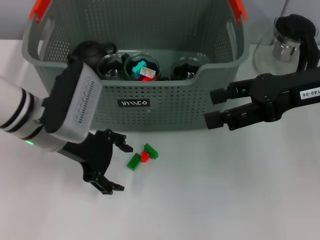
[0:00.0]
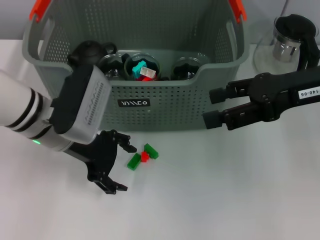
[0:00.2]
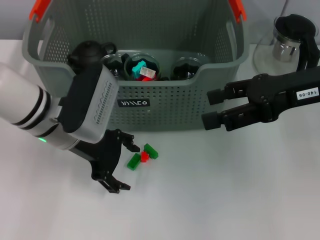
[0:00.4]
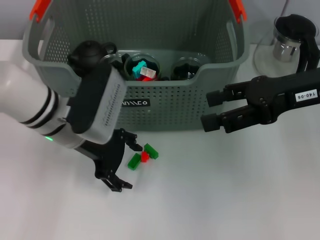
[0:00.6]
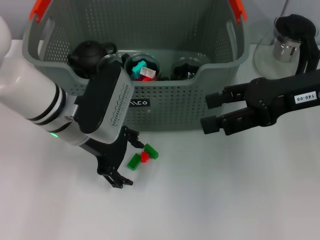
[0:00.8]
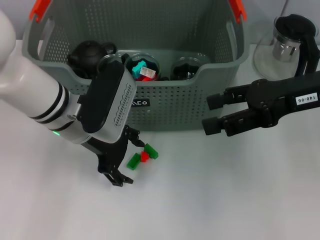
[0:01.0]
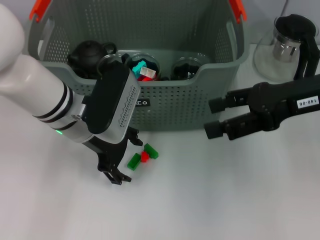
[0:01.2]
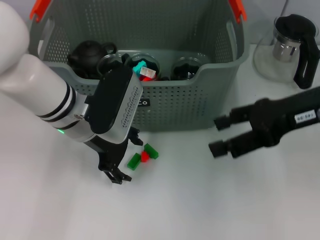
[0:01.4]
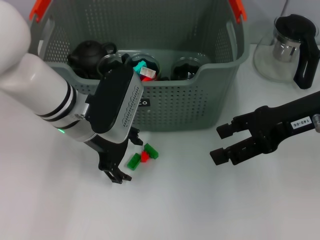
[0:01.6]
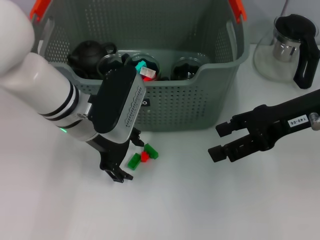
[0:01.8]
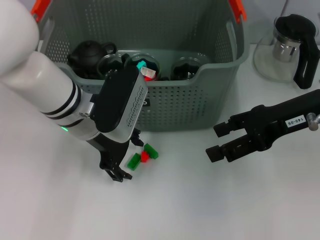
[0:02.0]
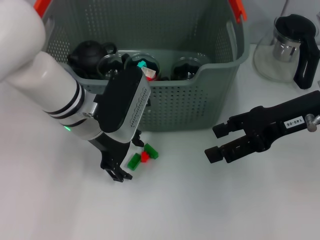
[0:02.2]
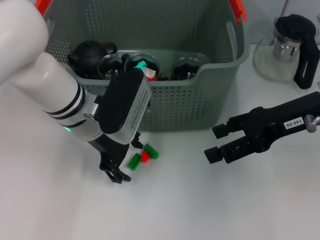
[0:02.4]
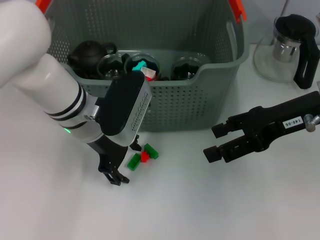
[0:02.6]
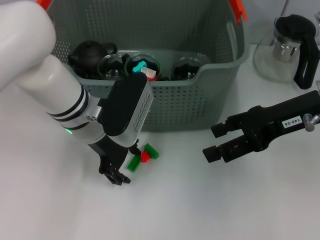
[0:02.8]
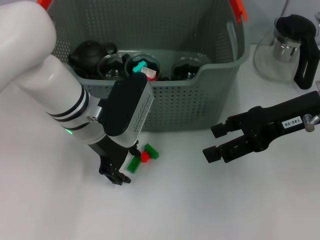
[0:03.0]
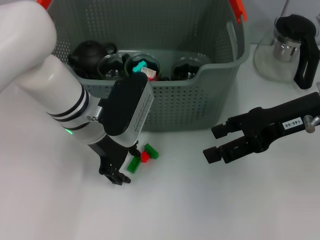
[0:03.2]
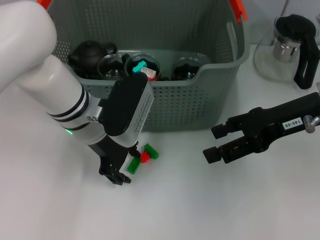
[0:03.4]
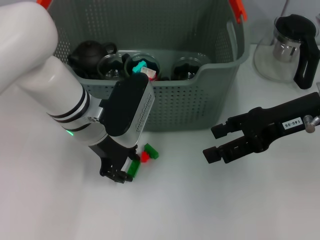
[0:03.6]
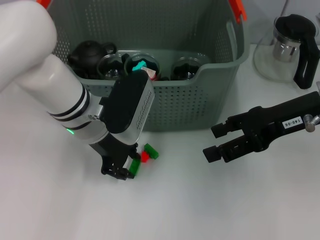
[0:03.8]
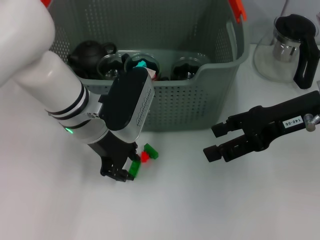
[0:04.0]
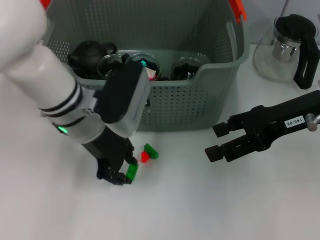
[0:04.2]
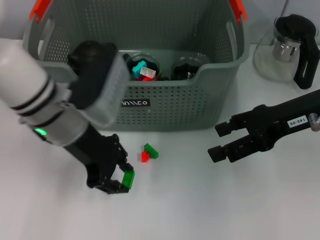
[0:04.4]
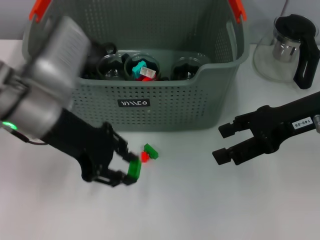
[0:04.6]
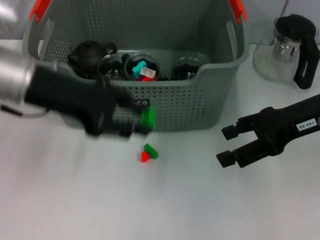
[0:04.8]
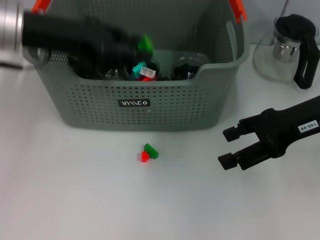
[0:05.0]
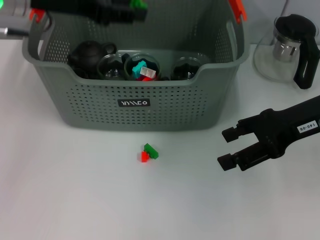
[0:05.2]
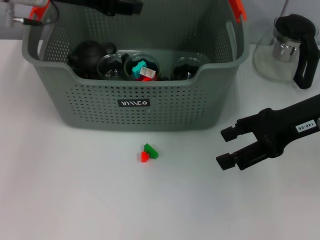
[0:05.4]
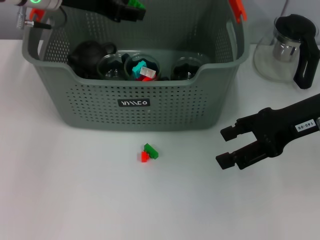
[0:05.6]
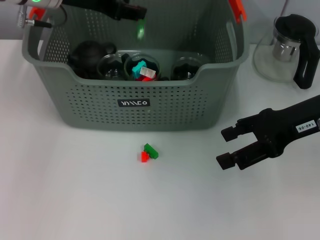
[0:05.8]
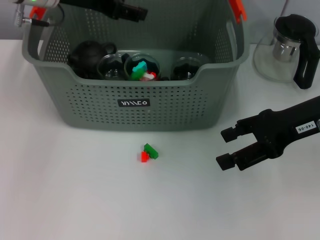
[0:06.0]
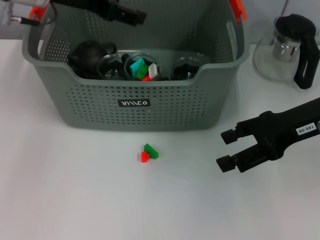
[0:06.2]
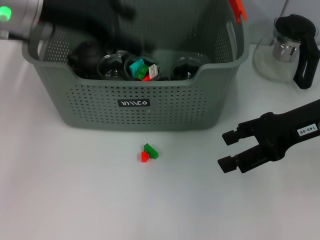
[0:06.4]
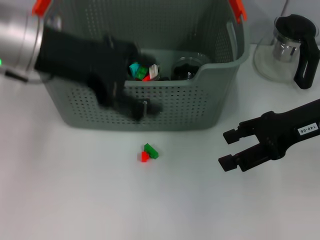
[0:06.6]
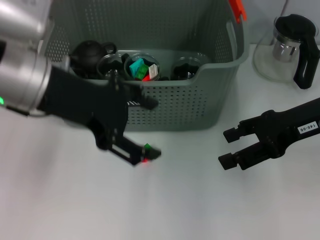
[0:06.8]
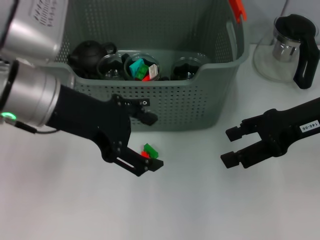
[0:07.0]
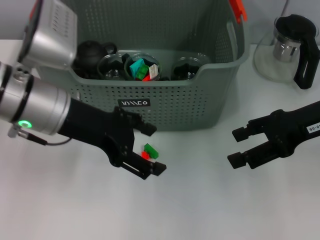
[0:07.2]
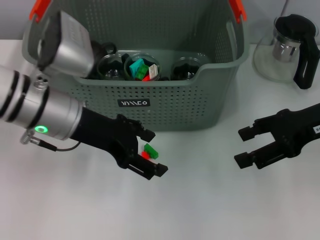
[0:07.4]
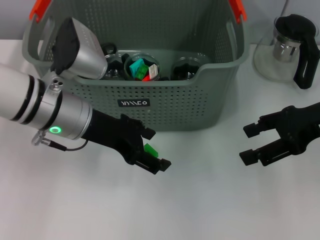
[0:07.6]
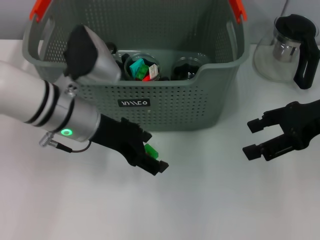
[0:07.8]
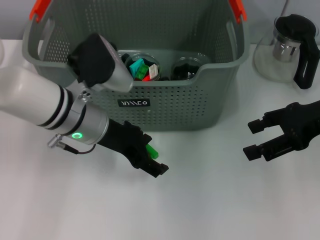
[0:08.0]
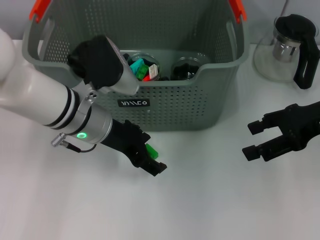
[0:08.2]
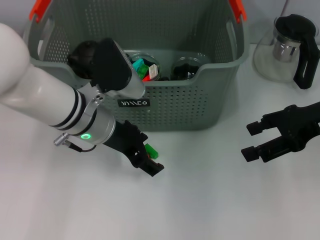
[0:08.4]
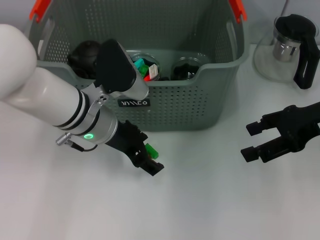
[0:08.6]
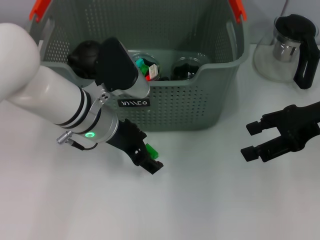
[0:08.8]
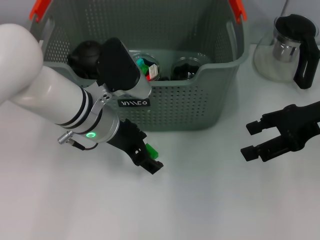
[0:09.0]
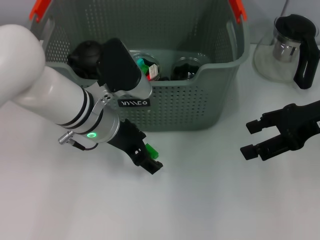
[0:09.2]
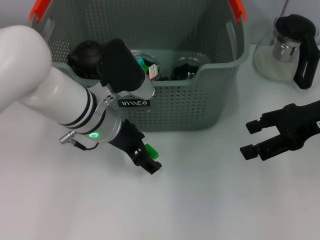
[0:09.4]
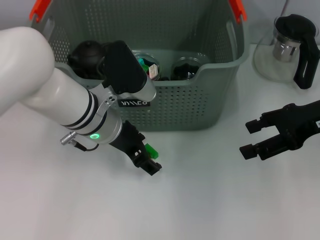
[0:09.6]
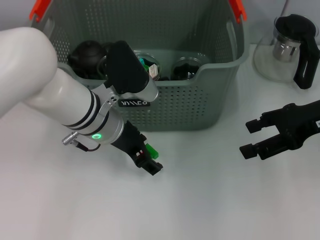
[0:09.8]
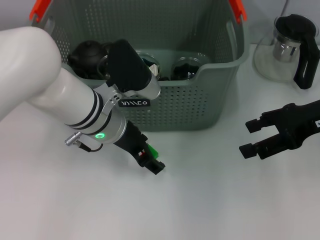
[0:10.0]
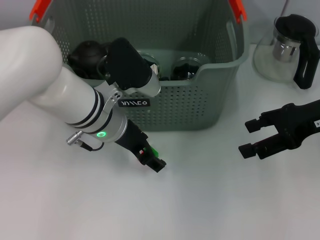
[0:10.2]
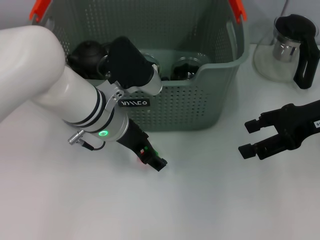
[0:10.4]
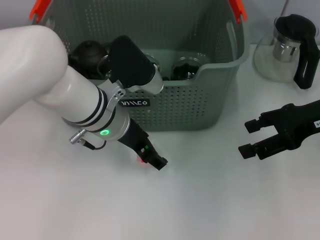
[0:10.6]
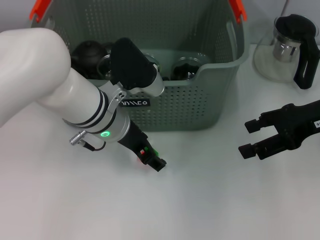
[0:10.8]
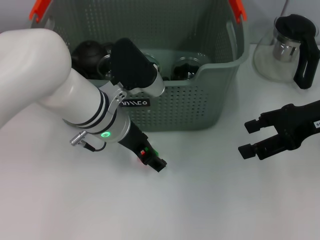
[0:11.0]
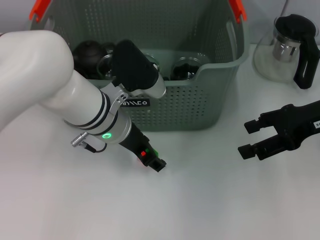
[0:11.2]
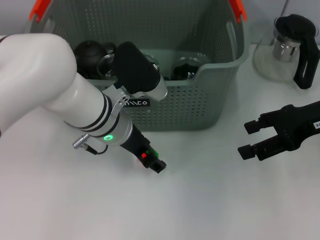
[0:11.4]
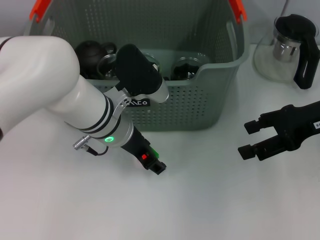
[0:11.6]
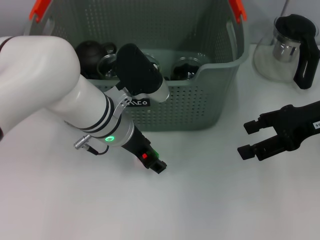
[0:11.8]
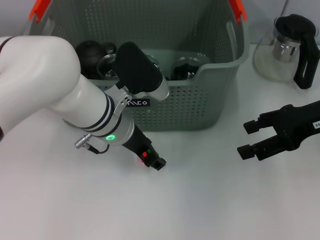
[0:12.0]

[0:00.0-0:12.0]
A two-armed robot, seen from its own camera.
Task of the whole recording: pick up the teacup on the table and place it into the storage bin, pick up the block on the table and place it into the storage bin.
Step, 0:00.0 to 0:03.6: Grasp the green block with left gripper.
Step, 0:03.8 to 0:06.2: Place the green block in the storage box with left gripper.
0:00.0 to 0:01.6: The left gripper ends up approximately 5 cm from where it was.
0:01.6 to 0:03.0: The grippers make only small movements.
0:03.0 to 0:04.4: The left gripper shifts by approximately 5 cm.
0:04.4 to 0:06.0: The left gripper is displaced forward and upward by some 15 cm.
0:06.0 to 0:07.6: The left gripper moves backward and downward, some 15 cm, and opens.
0:07.6 to 0:09.0: The left gripper shifts by some 5 cm.
0:09.0 to 0:10.4: The grippers move only a little.
0:10.4 to 0:12.0: Neither gripper changes place.

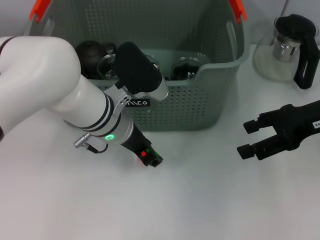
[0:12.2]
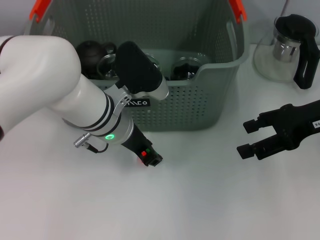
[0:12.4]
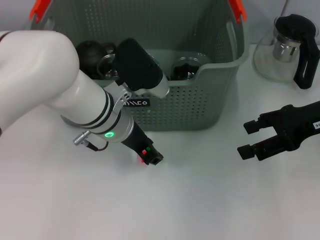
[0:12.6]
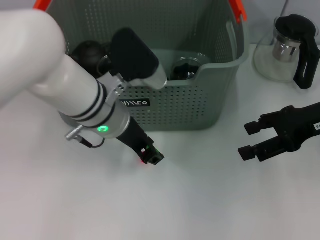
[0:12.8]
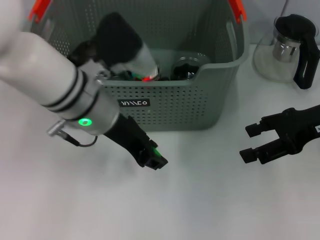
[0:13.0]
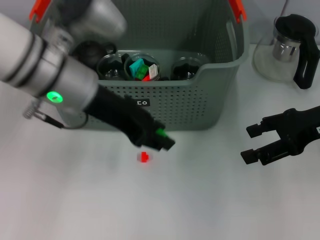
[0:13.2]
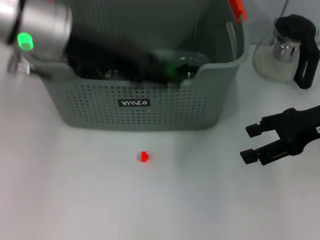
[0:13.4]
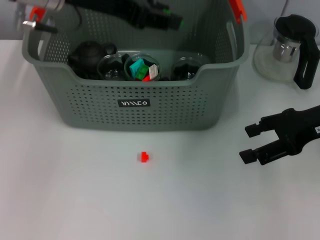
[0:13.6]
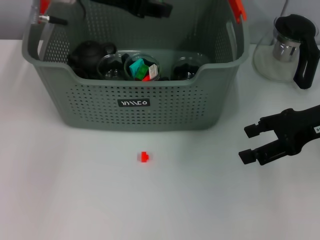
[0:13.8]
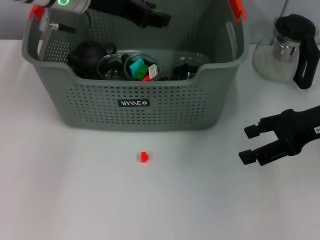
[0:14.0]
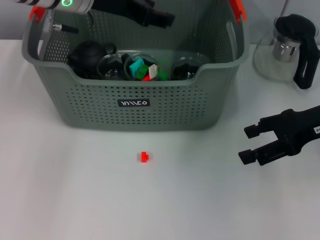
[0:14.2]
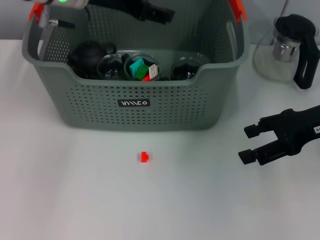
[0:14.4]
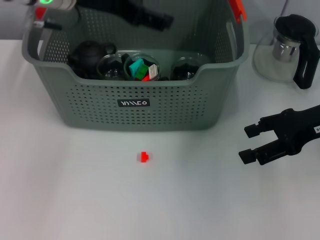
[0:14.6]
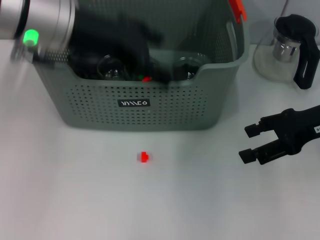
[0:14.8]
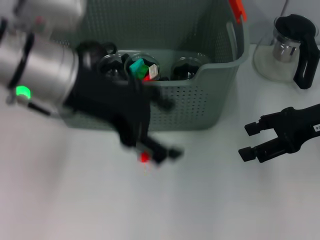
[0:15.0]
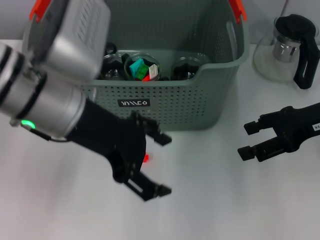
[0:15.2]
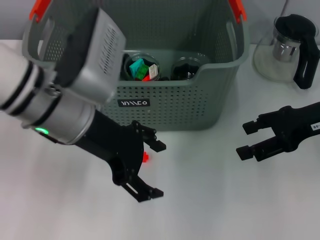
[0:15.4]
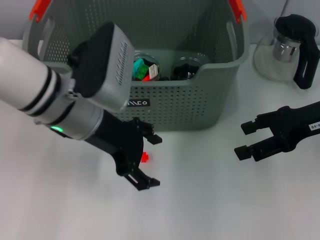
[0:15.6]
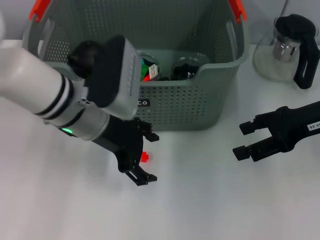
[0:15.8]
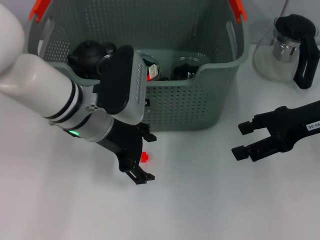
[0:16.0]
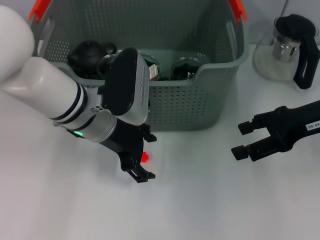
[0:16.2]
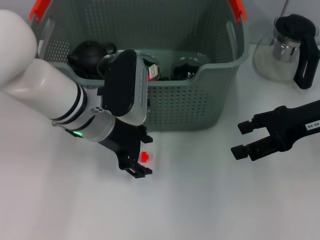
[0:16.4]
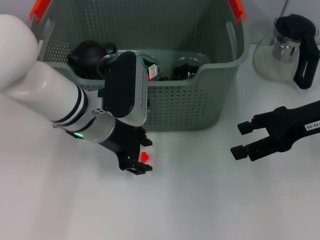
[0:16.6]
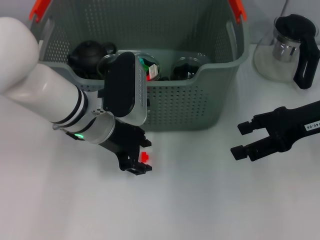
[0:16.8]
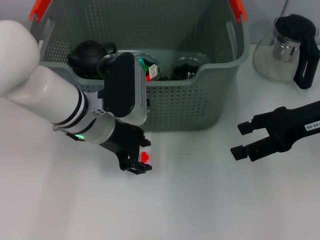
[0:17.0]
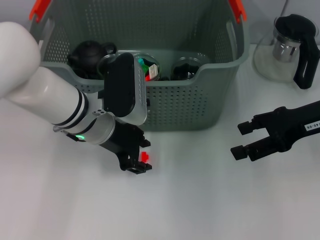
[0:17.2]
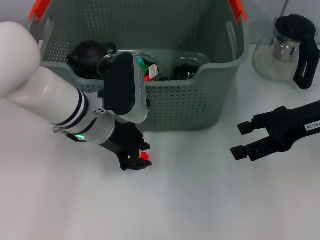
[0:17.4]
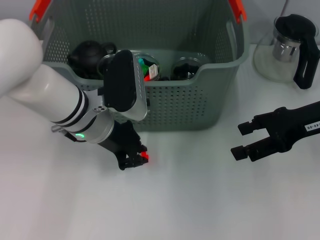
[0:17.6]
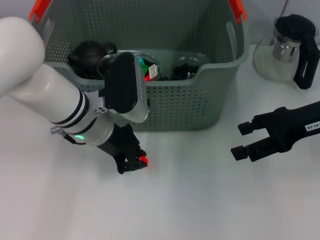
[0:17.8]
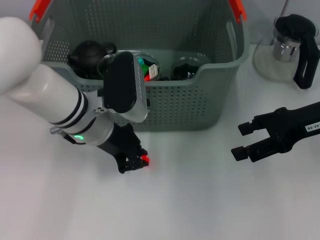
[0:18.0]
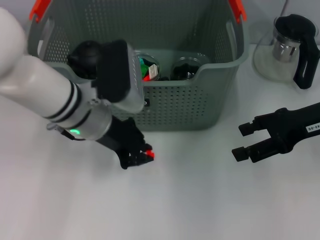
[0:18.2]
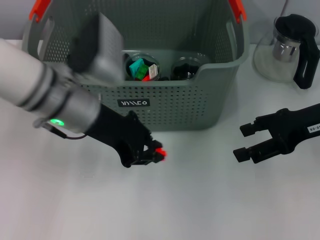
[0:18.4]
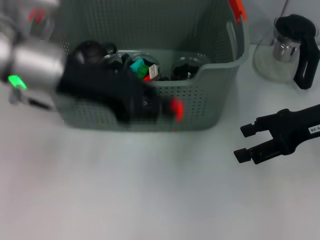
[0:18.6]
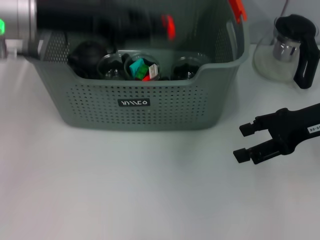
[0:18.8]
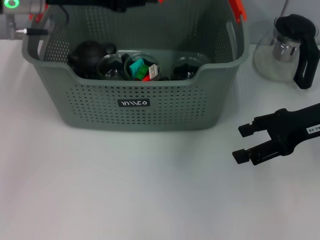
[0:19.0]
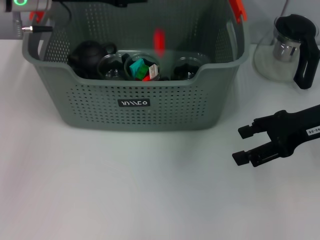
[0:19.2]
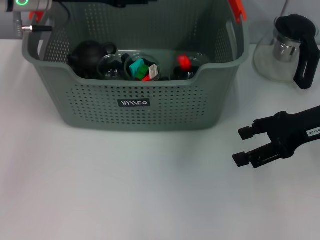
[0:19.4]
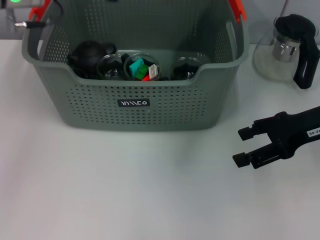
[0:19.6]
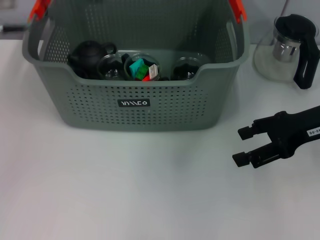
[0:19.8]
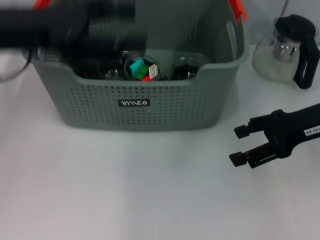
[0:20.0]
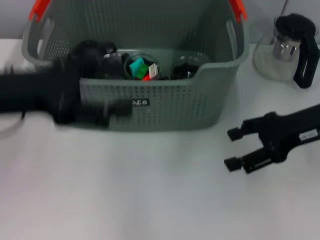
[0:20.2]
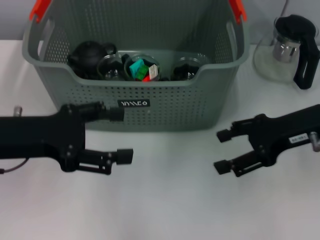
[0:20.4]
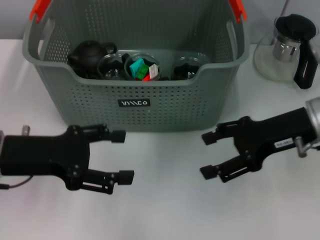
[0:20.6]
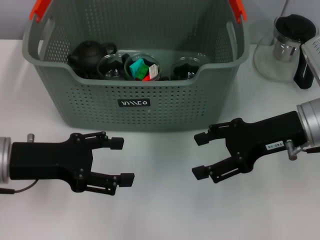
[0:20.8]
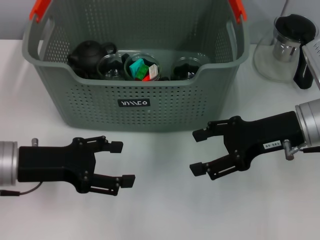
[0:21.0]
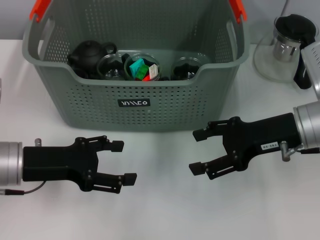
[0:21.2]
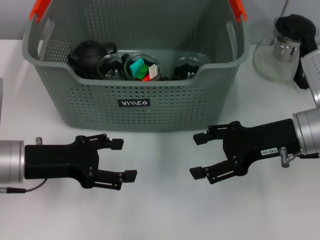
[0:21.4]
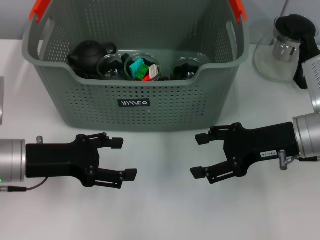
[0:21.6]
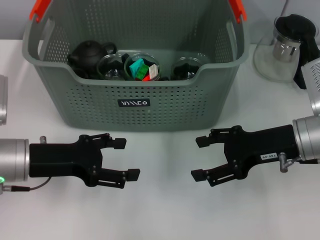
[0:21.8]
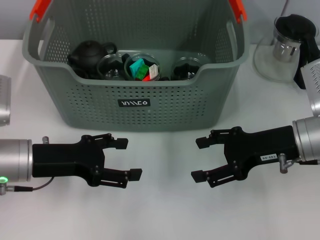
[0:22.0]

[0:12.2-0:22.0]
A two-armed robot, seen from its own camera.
Task of the whole recording: pick up the teacup on the table and place it into the storage bin, pick up the block on the table and place it into the storage bin.
Step, 0:12.6 to 0:14.6: Place the green block in the storage box with left gripper.
Step, 0:14.8 to 0:17.8: Grasp the orange block with left gripper.
Step, 0:18.0 to 0:19.6: Place the orange block in the storage box with left gripper.
0:12.2 to 0:13.6: The left gripper heads upward and to the left, covering roughly 20 cm.
0:13.6 to 0:15.0: The left gripper moves backward, some 10 cm, and opens up.
0:15.0 to 0:16.4: The left gripper travels downward by approximately 15 cm.
0:16.4 to 0:17.8: The left gripper closes up.
0:17.8 to 0:19.2: The left gripper is displaced upward and to the left by approximately 15 cm.
0:19.2 to 0:20.6: The left gripper is displaced backward and downward by some 20 cm, and opens its fingers.
0:20.6 to 0:22.0: The left gripper travels downward by about 5 cm.
